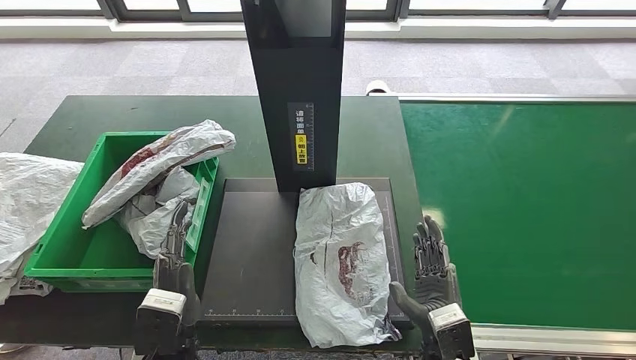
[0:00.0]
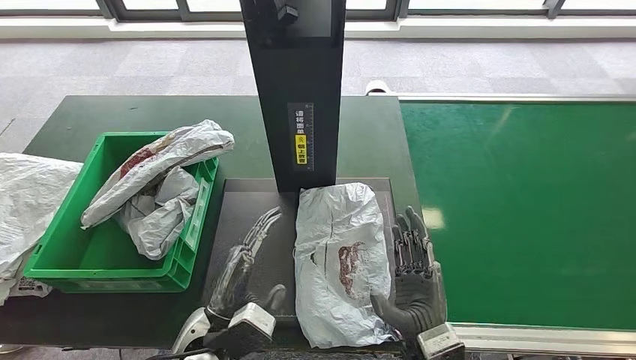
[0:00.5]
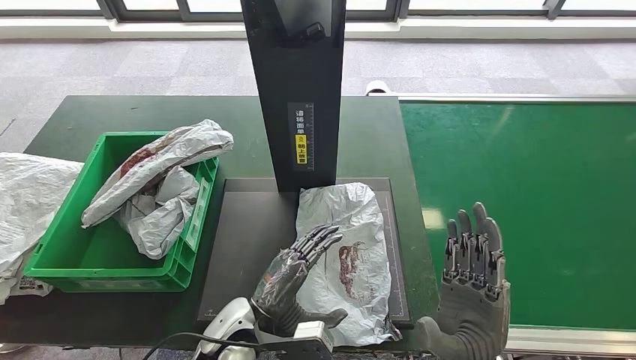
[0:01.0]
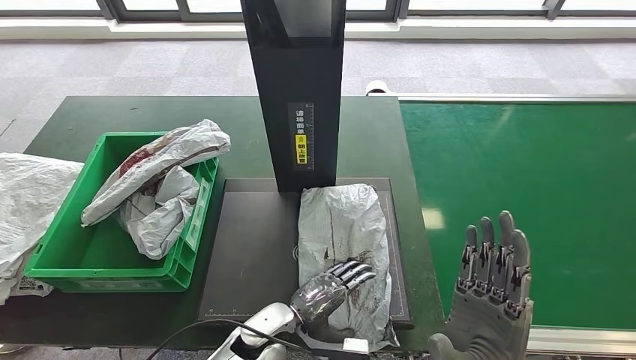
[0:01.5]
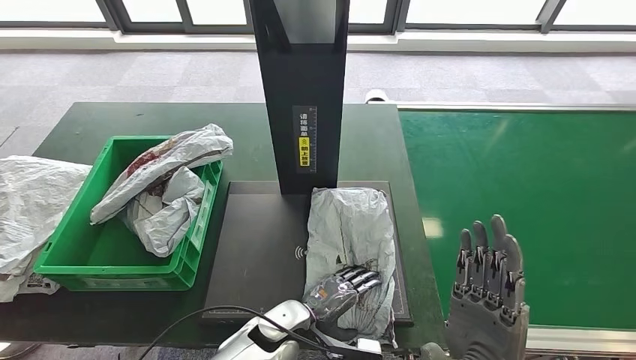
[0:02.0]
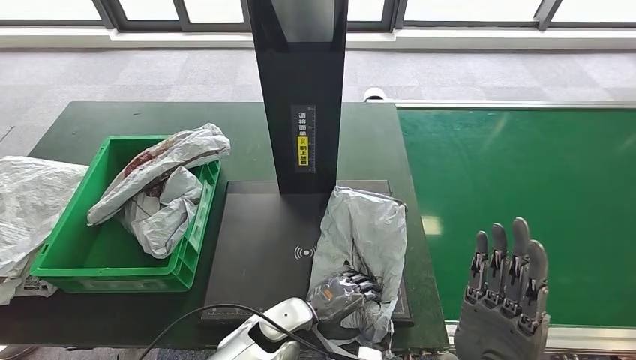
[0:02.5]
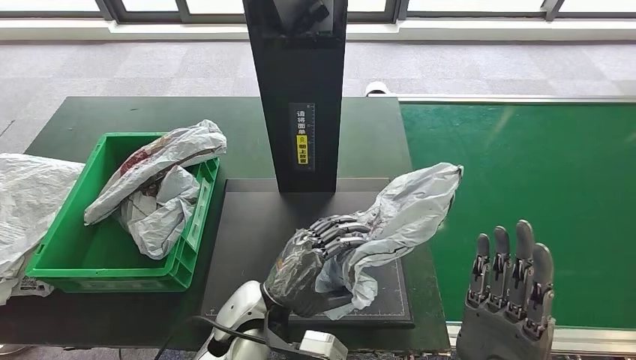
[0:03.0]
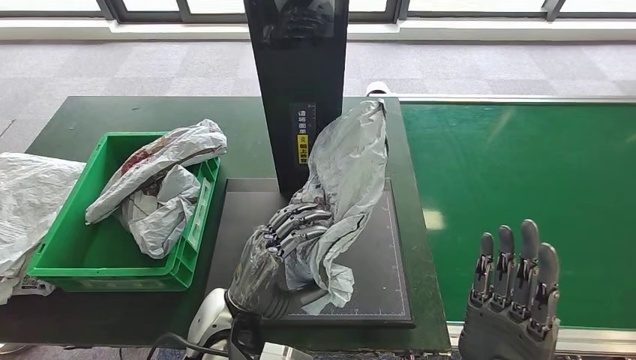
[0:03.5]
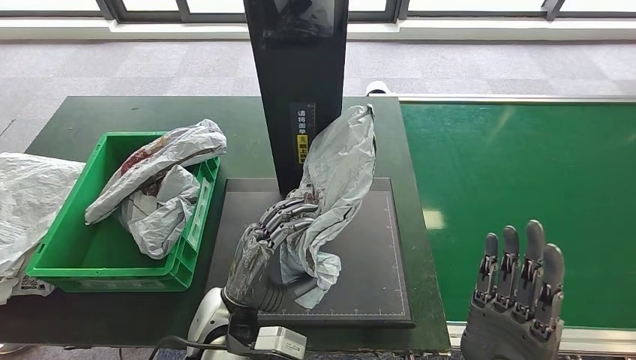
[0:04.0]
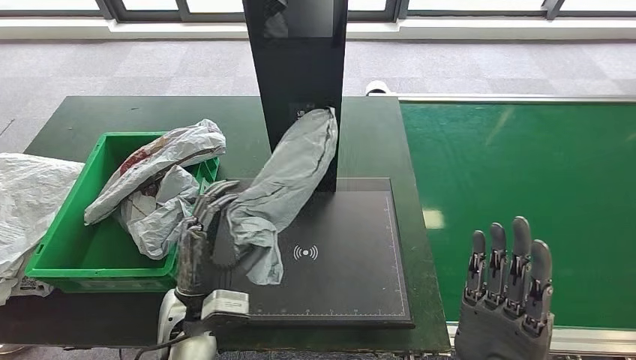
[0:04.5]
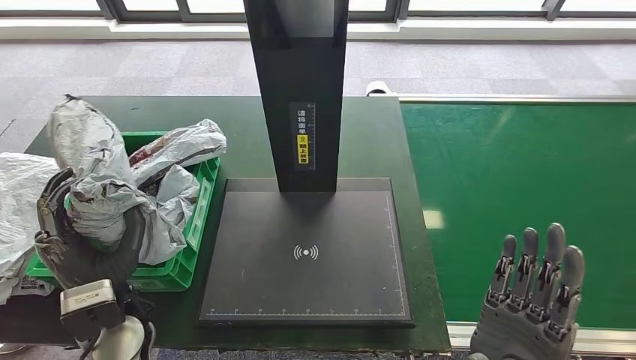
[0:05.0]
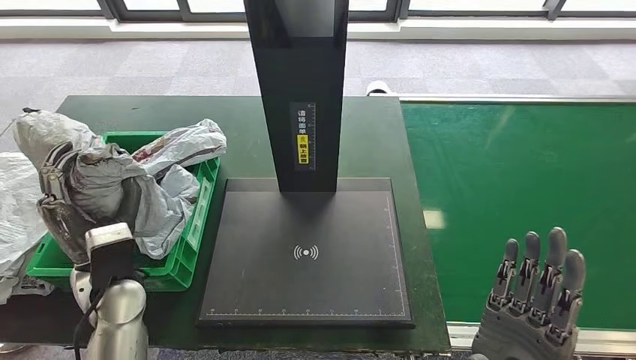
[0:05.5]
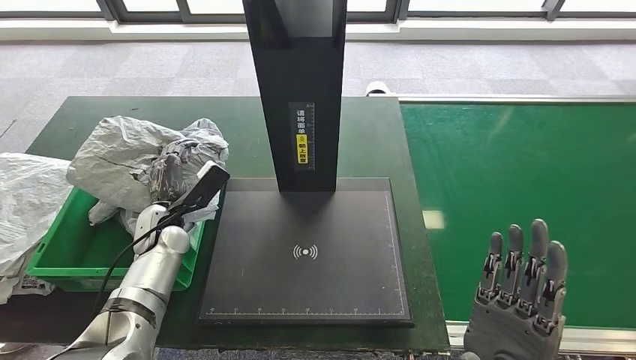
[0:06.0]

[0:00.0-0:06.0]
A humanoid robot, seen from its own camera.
Step, 0:00.5 to 0:03.0: Pick up the parcel from the inbound machine.
Step, 0:03.5 to 0:06.0: Place the parcel into the delivery box.
0:04.0 to 0:06.0: The left hand moves to the left and forward, about 25 cm.
